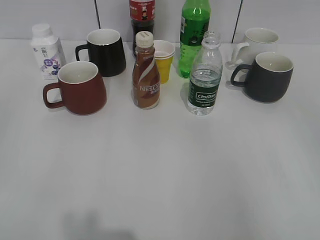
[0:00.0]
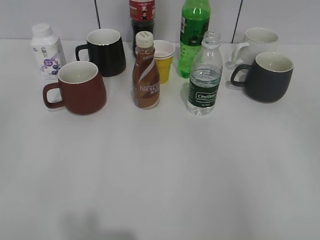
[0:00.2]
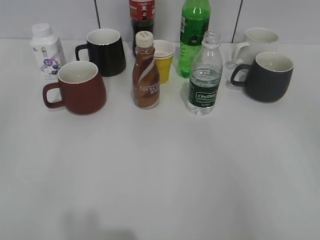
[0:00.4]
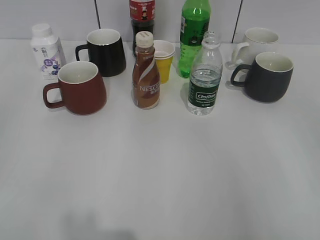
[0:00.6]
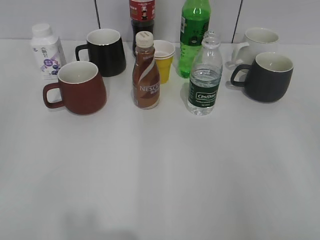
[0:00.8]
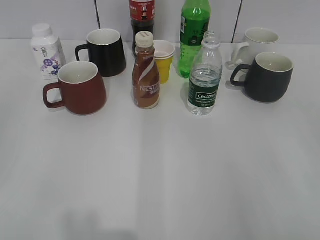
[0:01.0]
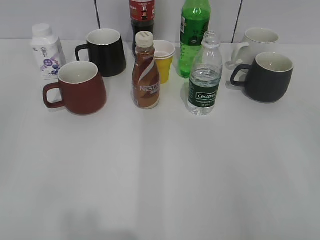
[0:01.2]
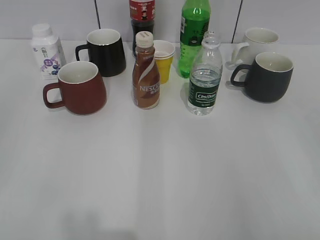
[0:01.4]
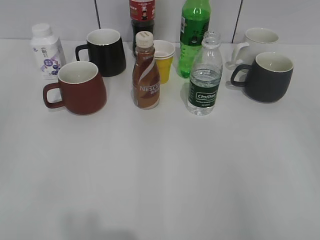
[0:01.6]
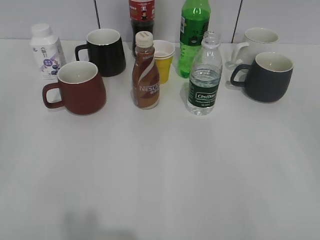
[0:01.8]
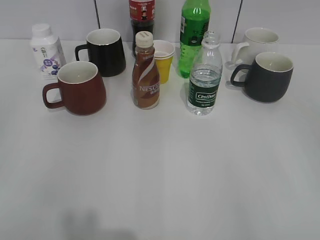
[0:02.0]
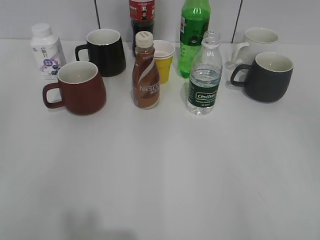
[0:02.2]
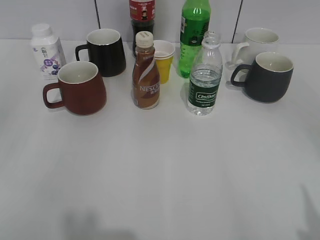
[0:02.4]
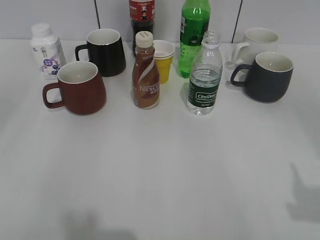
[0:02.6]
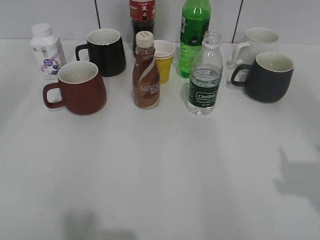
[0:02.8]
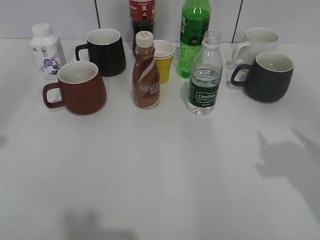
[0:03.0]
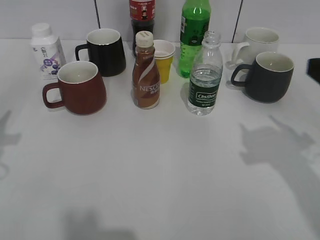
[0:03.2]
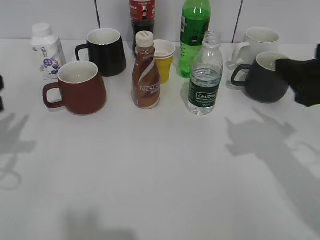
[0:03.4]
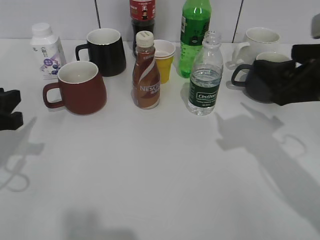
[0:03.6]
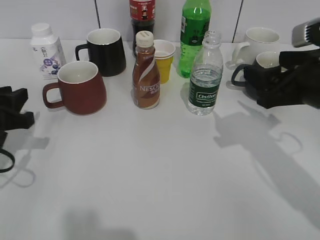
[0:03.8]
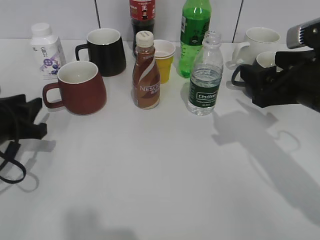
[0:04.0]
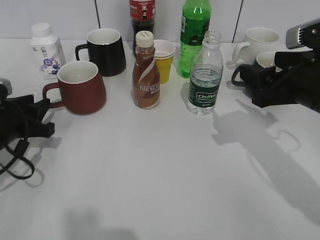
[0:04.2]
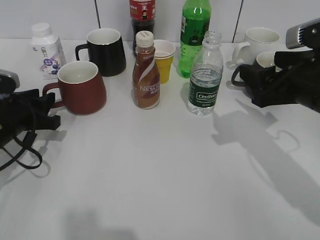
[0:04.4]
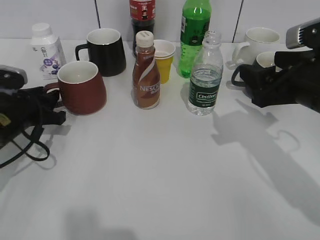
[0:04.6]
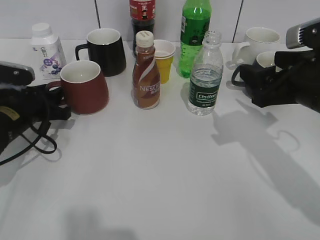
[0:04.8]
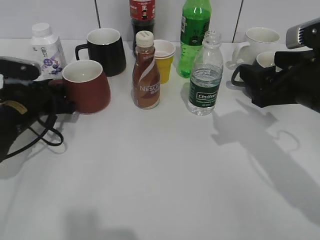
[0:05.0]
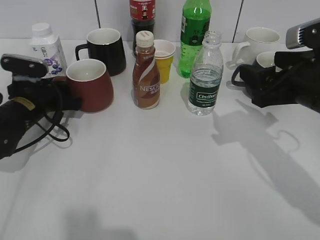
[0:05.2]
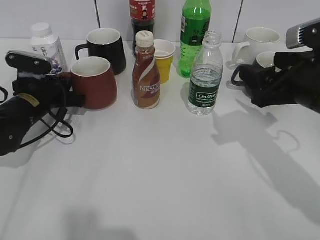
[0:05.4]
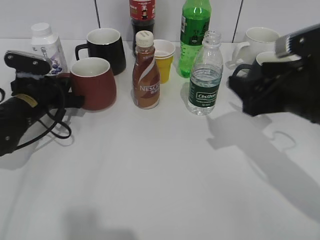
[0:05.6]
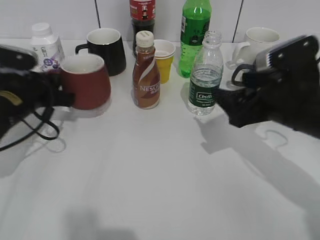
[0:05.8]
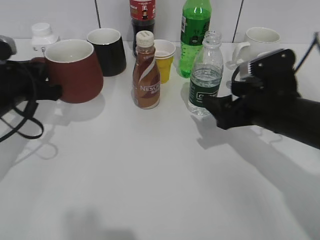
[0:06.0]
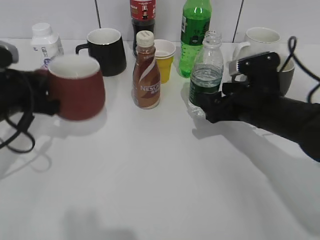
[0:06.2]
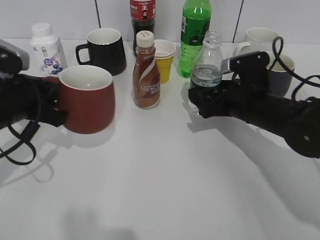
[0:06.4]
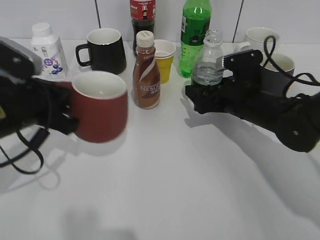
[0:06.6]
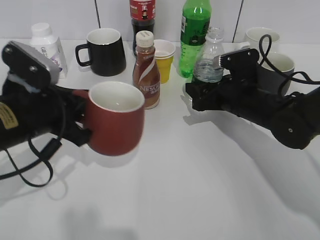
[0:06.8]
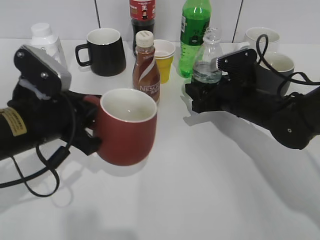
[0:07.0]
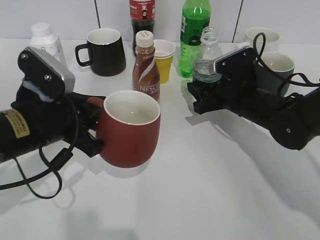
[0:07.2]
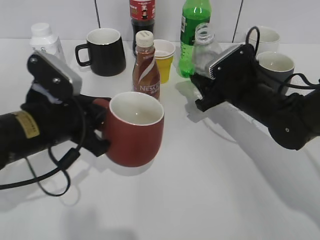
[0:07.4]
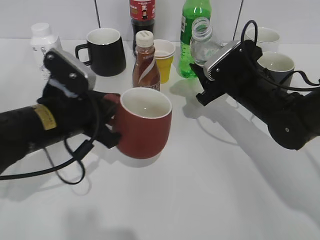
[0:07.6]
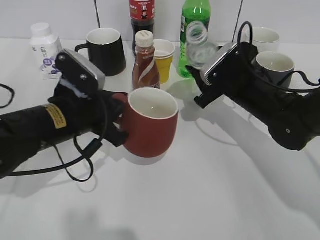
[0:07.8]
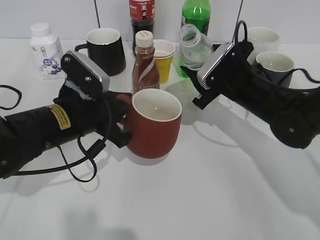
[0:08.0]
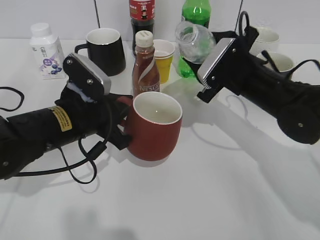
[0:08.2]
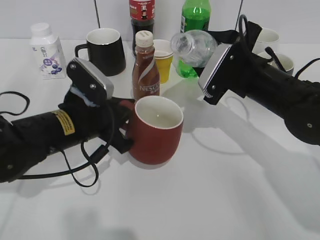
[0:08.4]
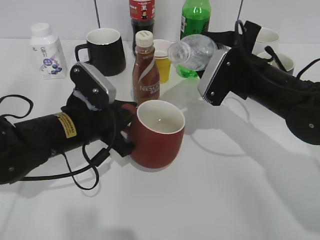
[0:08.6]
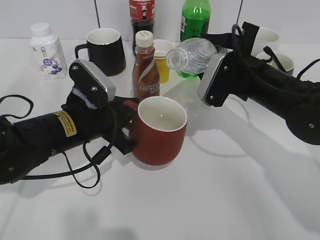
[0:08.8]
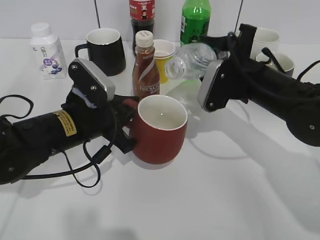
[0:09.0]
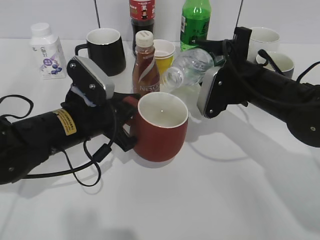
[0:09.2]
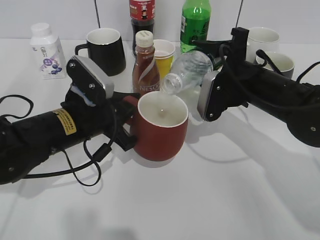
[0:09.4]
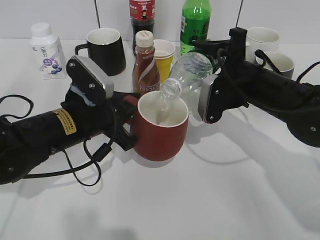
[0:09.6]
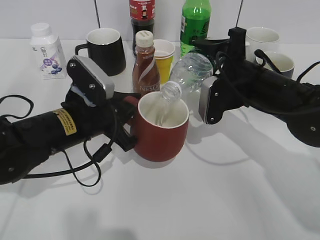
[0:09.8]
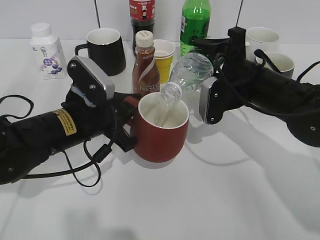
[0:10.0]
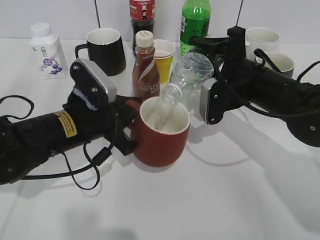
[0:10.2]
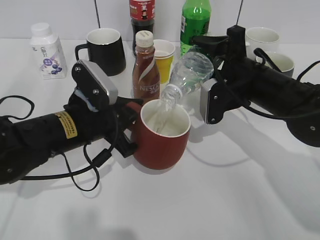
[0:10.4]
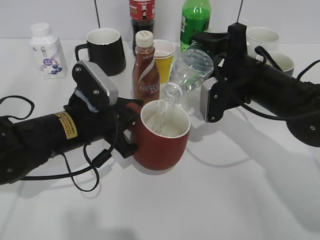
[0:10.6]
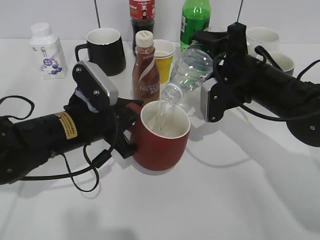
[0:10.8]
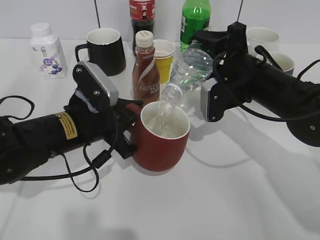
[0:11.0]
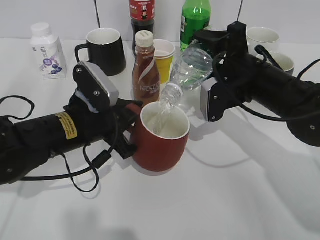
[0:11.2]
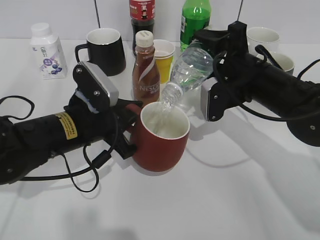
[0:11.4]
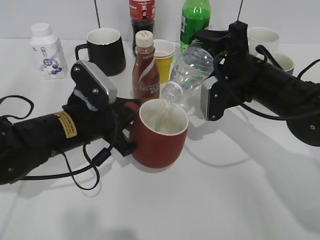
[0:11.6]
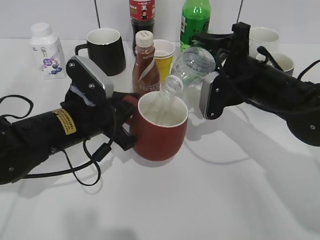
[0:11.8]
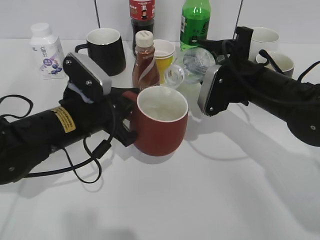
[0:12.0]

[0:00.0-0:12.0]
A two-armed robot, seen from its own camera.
Step, 0:02.0 to 0:05.4: Grasp the red cup with left gripper.
Step, 0:05.6 to 0:06.0: Lift the red cup with left gripper.
Step, 0:06.2 to 0:06.6: Grasp the bottle with water with right gripper.
0:01.6 to 0:03.0: Both grippers move forward, about 15 cm.
0:03.0 to 0:04.4: The left gripper moves downward and forward, roughly 20 cm; the right gripper shifts about 15 cm forward, downward and to the left.
0:04.4 to 0:06.0: The left gripper closes its fingers; the right gripper travels downward by about 5 cm.
0:06.0 to 0:07.6: The right gripper is displaced forward by some 10 cm, and closes; the left gripper moves to the right and backward, about 10 cm.
0:10.4 to 0:12.0: There are only small adjustments of the grippers.

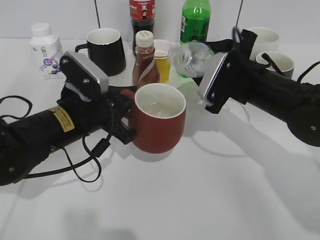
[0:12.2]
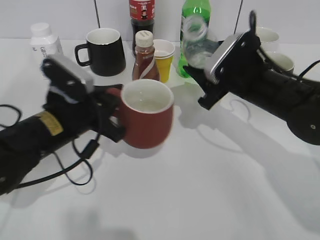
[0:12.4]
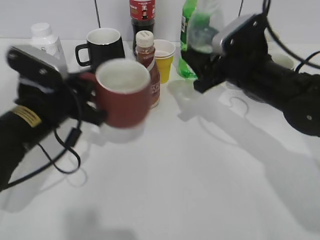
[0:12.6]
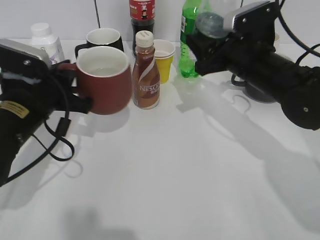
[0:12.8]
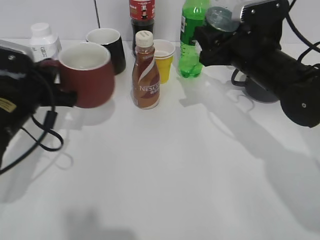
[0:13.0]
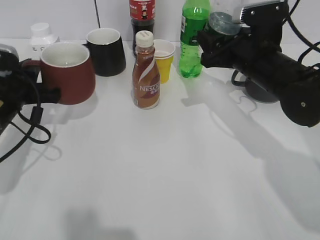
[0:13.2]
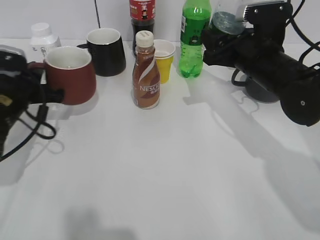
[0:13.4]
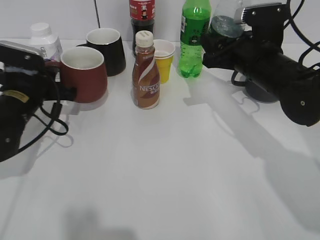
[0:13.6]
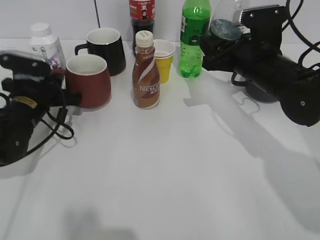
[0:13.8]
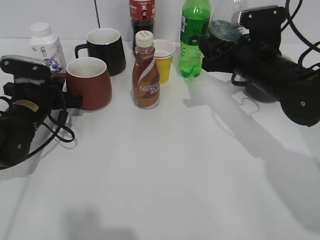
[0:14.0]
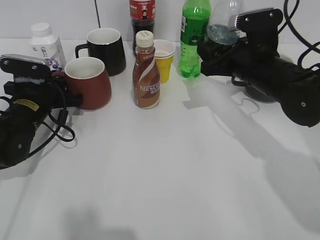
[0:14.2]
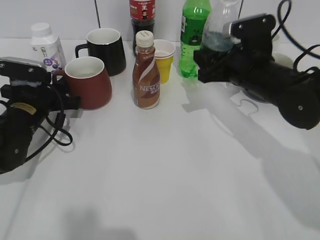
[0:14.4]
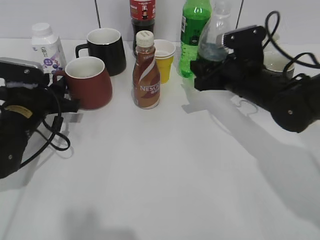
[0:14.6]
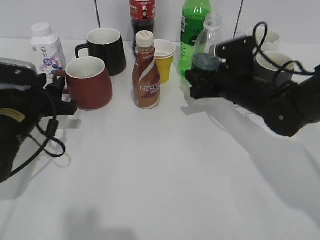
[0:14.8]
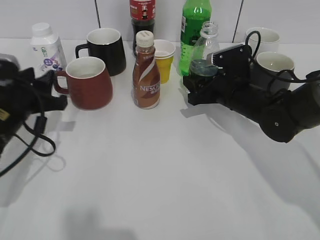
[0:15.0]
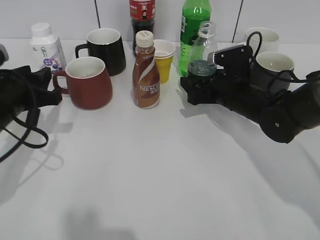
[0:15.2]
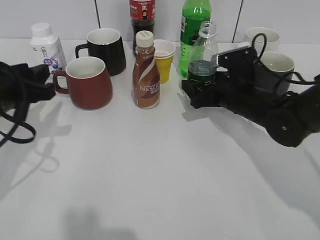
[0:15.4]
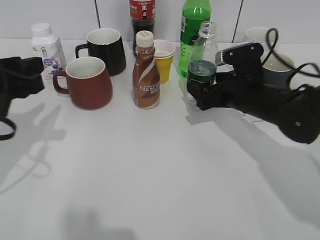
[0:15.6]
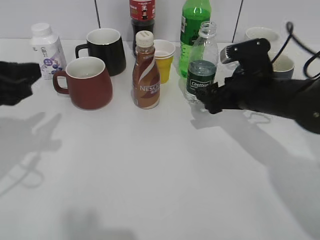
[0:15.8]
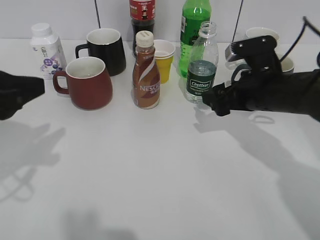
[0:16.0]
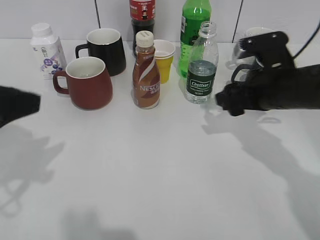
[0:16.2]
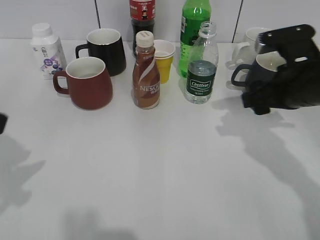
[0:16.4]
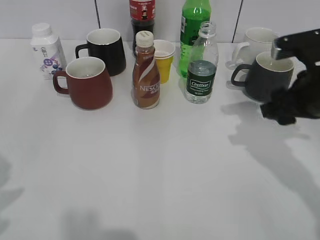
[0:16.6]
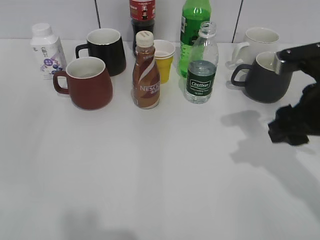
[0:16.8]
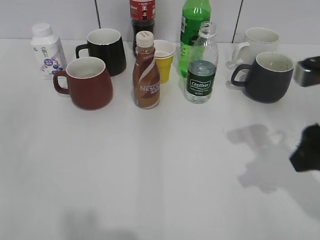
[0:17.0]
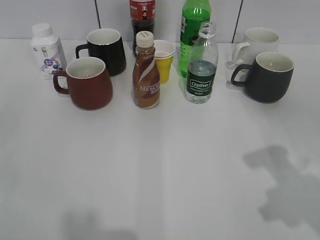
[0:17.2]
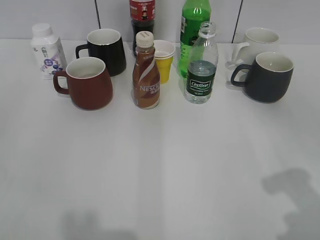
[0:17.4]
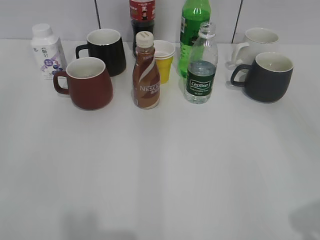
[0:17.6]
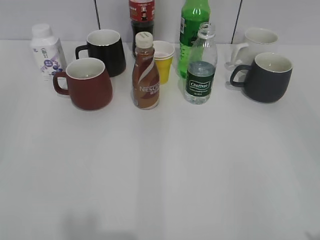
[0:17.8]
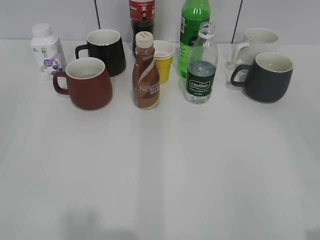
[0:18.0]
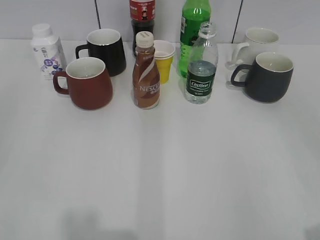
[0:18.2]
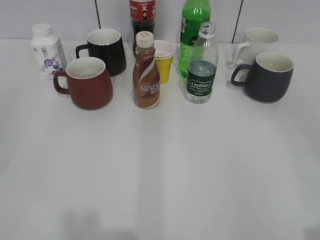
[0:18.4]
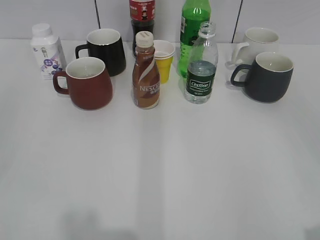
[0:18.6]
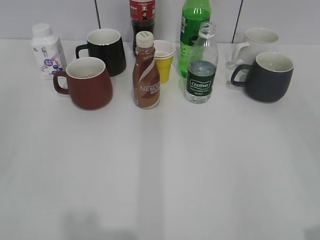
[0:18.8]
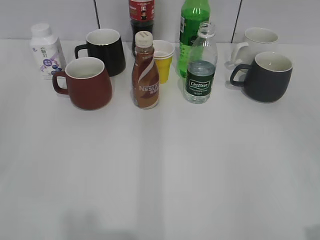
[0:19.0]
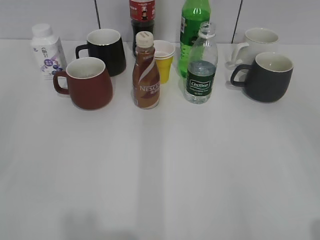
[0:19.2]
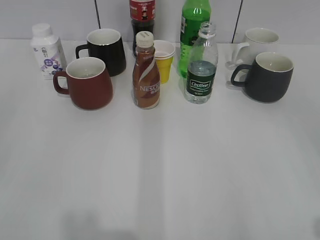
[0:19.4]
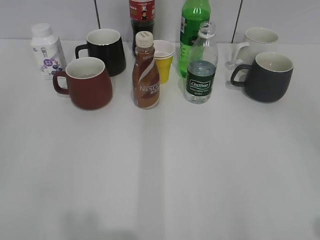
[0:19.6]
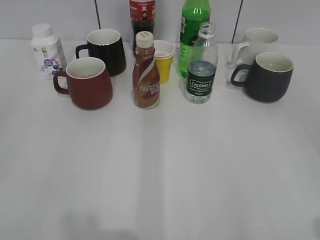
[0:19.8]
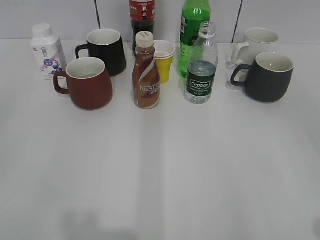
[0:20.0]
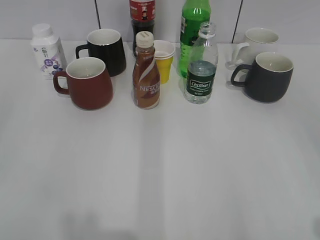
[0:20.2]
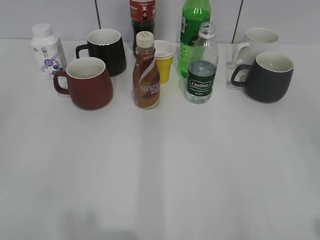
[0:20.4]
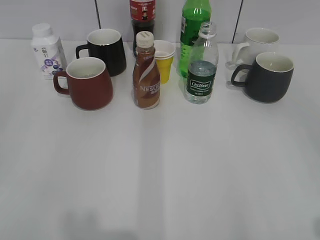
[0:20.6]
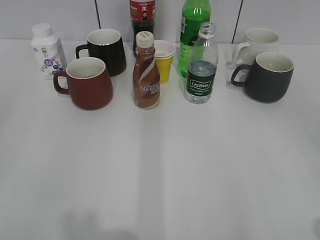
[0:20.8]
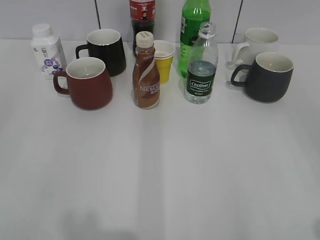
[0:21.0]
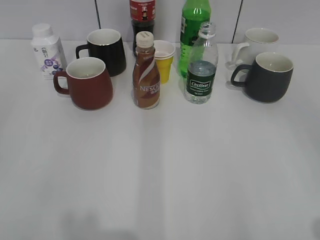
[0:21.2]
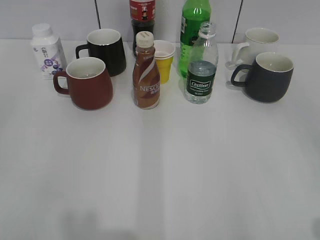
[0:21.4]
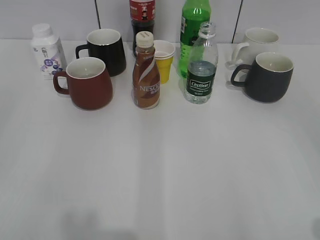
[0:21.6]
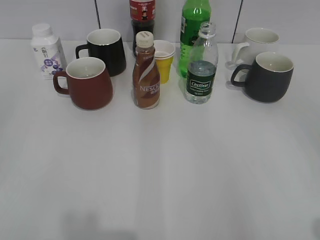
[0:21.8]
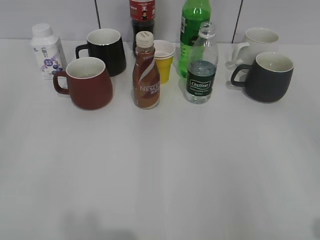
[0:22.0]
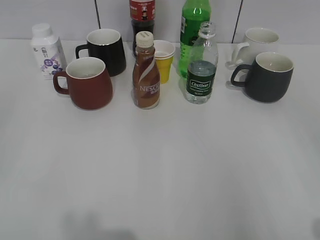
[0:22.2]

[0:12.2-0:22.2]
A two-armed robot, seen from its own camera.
Step, 0:12.2 to 0:14.4: Place the red cup on the table with left gripper.
Step, 0:14.6 to 0:15.6: Place the water bottle on the table with right gripper.
0:12.2 to 0:13.6: The left gripper shifts approximately 10 cm to the left and forward.
0:13.6 to 0:15.0: The right gripper heads downward, covering roughly 10 cm. The left gripper opens up.
0:15.0 to 0:16.4: The left gripper goes some 20 cm upward and backward, while the right gripper goes roughly 10 cm upward and backward, and opens, then closes again.
0:16.4 to 0:18.0: The right gripper heads backward, covering roughly 30 cm, and closes.
0:20.8 to 0:22.2: The two grippers keep their place.
